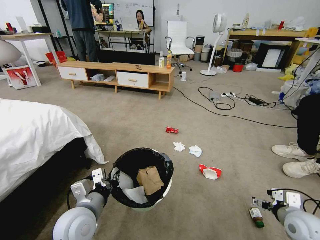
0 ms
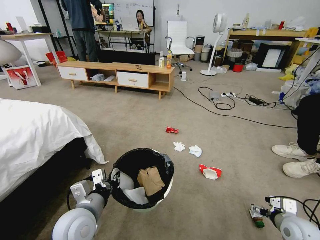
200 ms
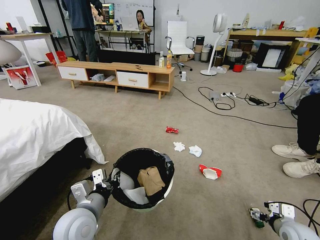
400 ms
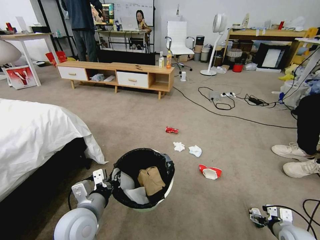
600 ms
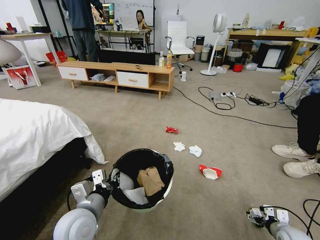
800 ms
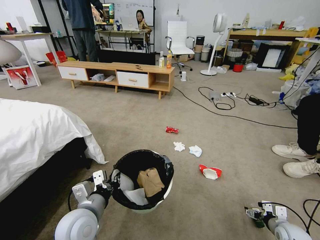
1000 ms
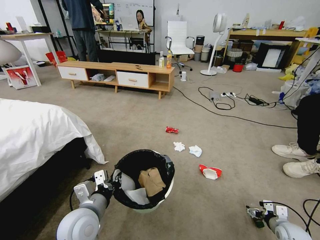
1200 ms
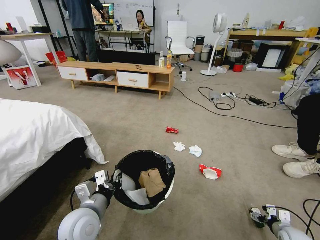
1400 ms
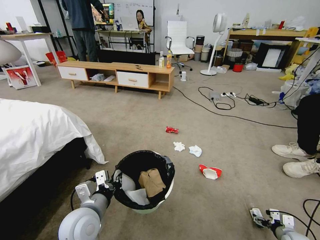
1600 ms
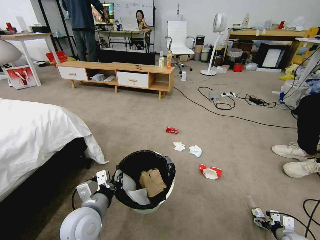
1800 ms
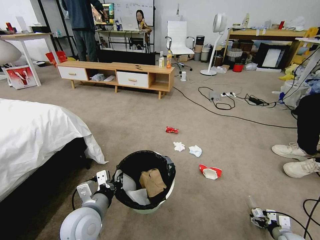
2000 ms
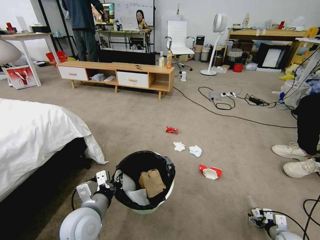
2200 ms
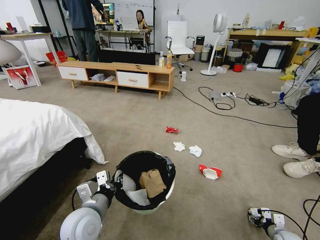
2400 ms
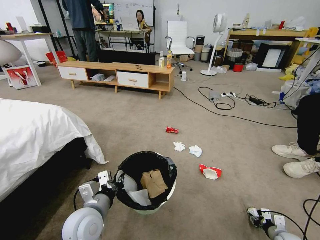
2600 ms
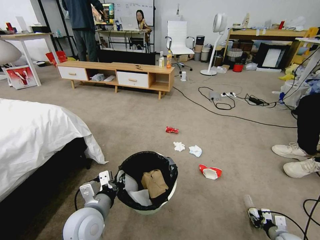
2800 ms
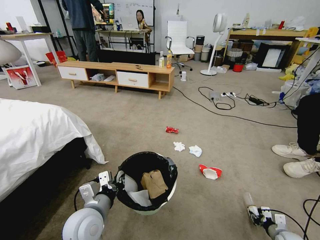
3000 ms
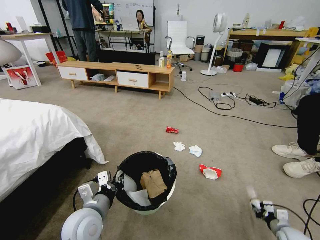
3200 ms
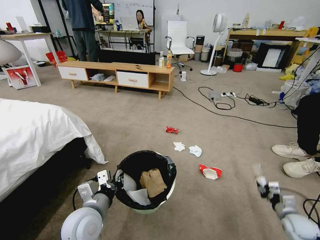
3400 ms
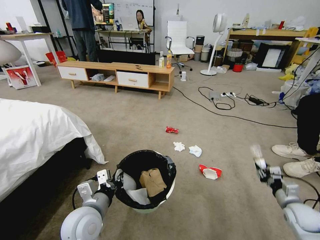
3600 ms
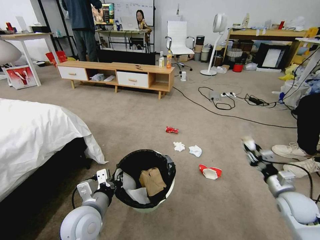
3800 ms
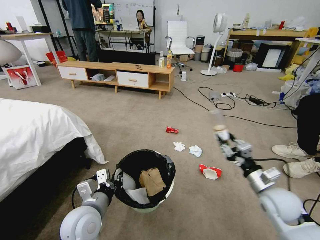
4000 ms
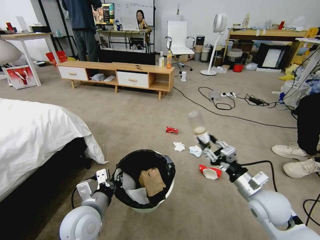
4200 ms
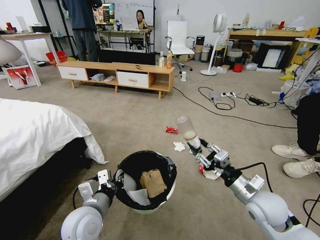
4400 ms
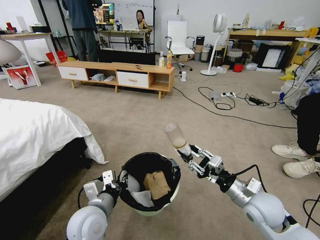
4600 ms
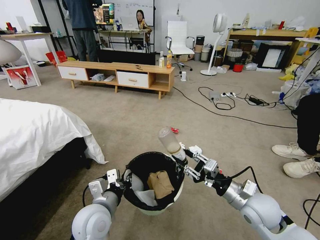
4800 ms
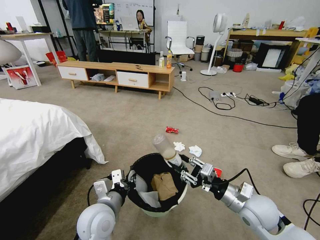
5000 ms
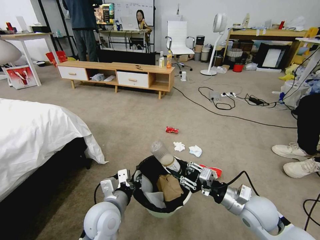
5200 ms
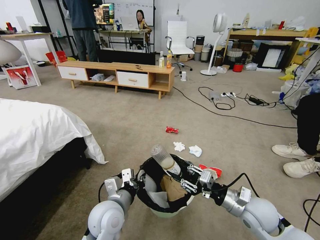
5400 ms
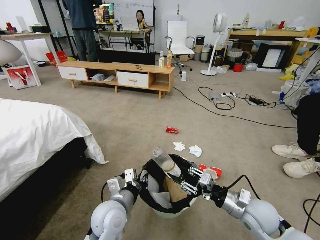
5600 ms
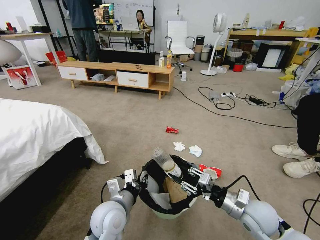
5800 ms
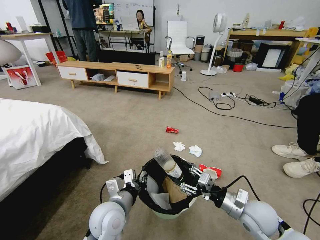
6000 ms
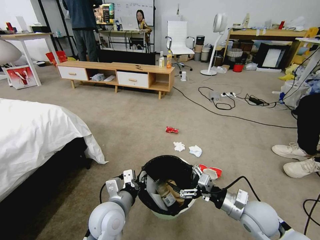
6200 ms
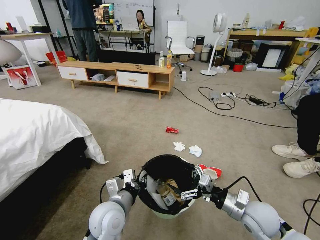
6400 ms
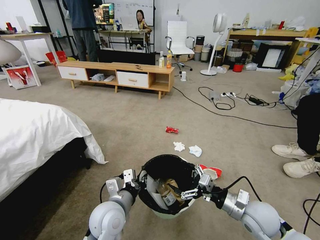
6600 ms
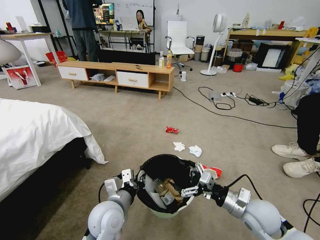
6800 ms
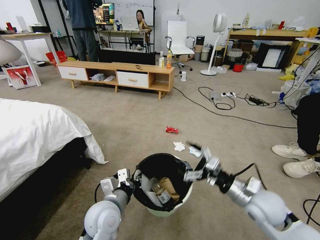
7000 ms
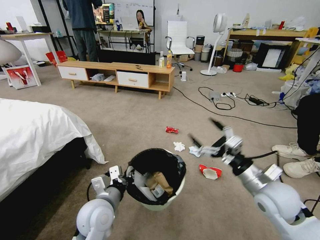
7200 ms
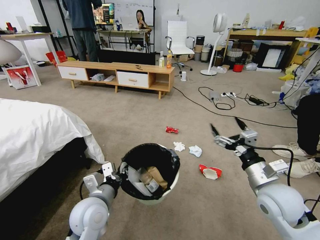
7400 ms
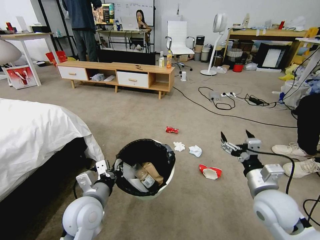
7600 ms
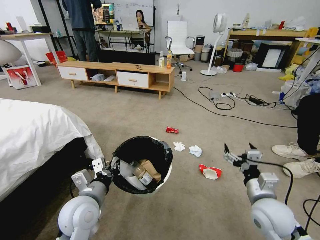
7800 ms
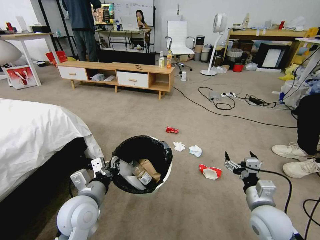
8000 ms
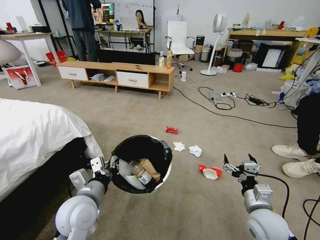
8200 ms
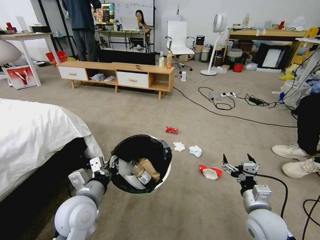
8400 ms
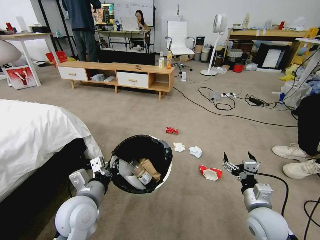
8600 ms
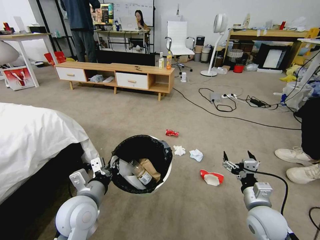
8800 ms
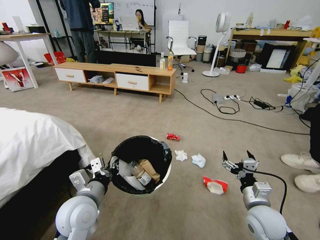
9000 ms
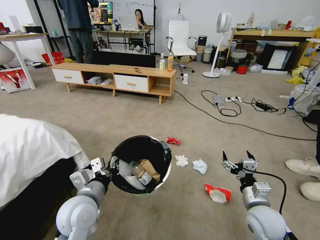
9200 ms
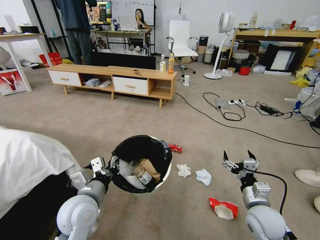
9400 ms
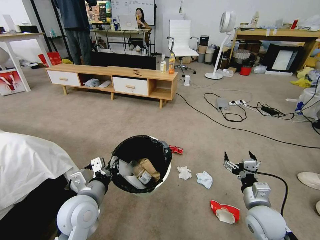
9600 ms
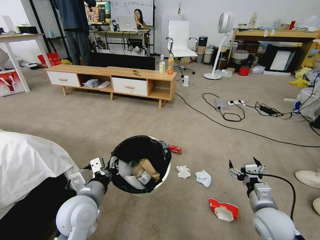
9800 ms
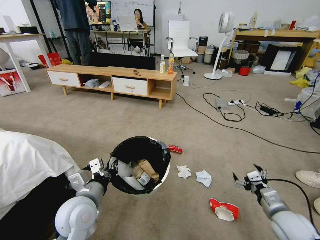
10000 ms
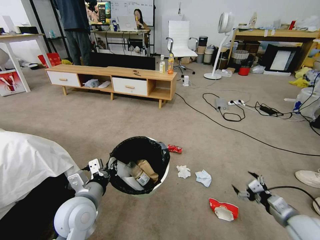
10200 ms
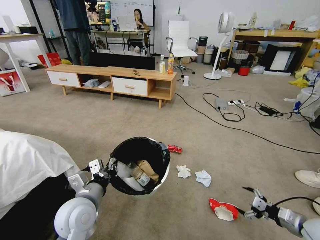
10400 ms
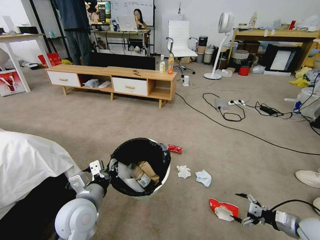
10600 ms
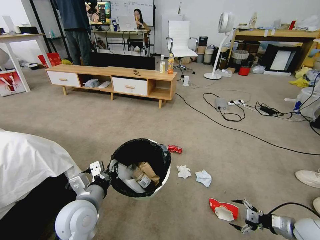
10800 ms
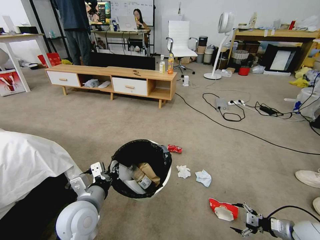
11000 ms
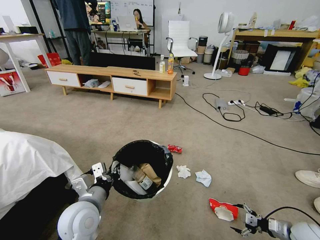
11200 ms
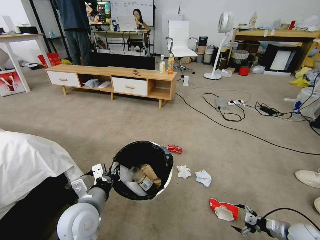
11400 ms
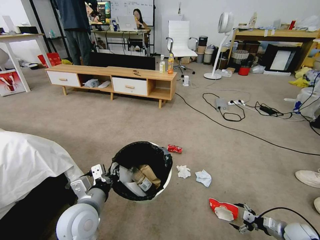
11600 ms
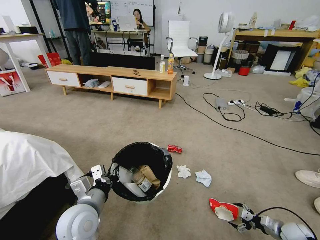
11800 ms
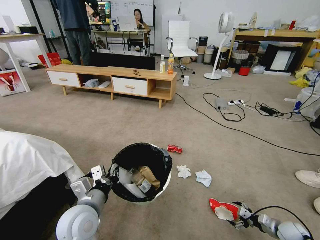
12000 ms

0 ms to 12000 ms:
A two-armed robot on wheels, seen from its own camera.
Task of the whole recording: Pick up the trash bin and place the garbage on the floor into it.
0 ms to 1600 ms: The right gripper moves downward and to the right, about 20 cm.
1600 ms to 3000 ms: The right gripper closes up.
3000 ms to 4400 ms: The right gripper heads upward and to the left, covering roughly 35 cm.
4400 ms to 6000 ms: The left gripper shifts some 5 cm to the right.
6000 ms to 7600 ms: The left gripper moves to the left, some 5 cm. The right gripper is displaced upward by some 5 cm, and opens its fingers.
7600 ms to 9000 ms: The right gripper is displaced downward by approximately 10 cm.
9000 ms to 10400 ms: The right gripper is displaced to the right by roughly 20 cm.
10400 ms to 12000 ms: The right gripper is displaced downward by some 15 cm.

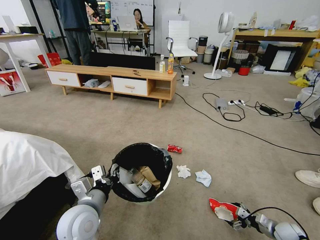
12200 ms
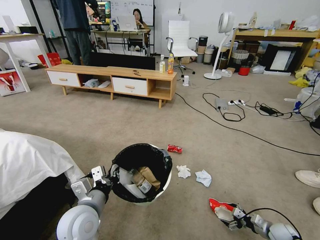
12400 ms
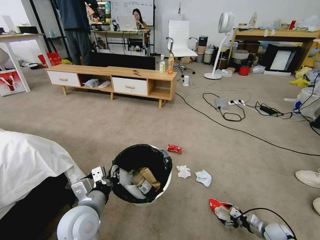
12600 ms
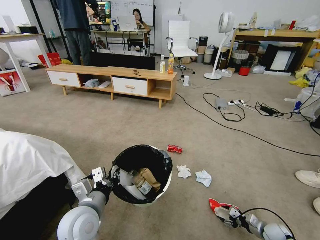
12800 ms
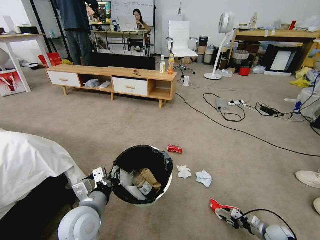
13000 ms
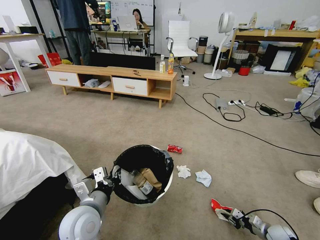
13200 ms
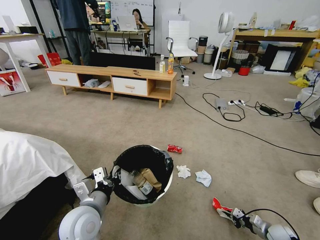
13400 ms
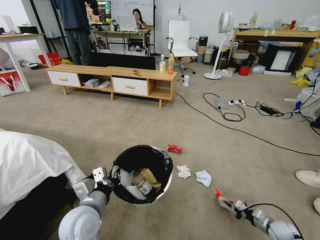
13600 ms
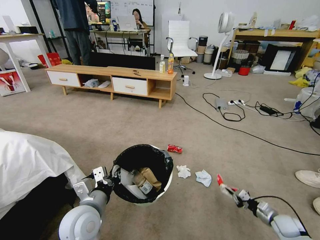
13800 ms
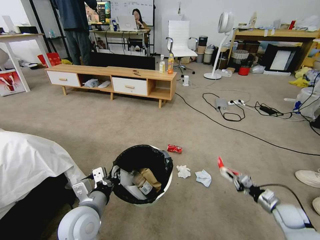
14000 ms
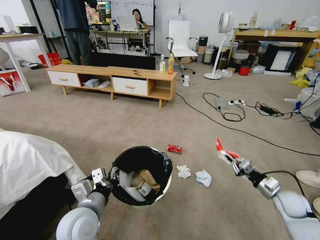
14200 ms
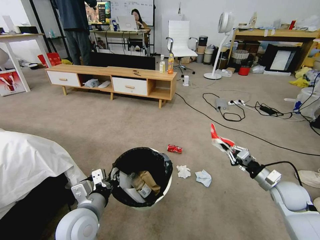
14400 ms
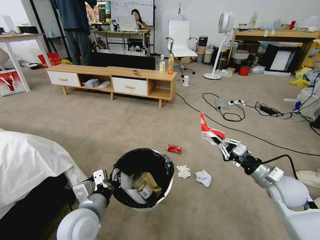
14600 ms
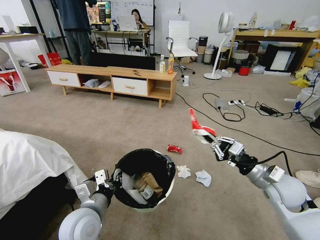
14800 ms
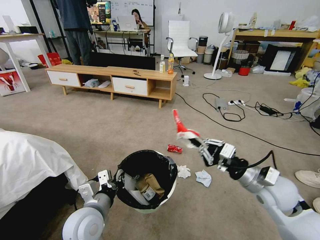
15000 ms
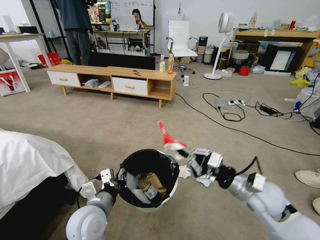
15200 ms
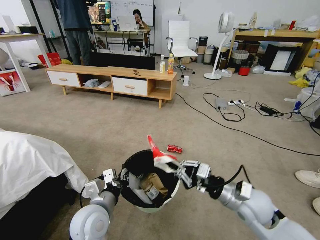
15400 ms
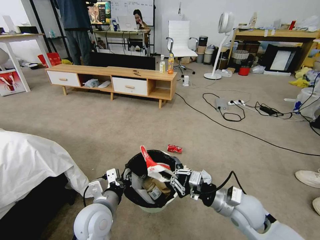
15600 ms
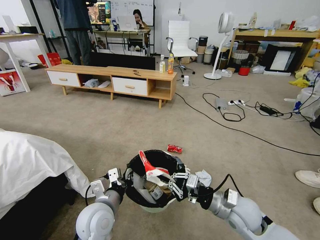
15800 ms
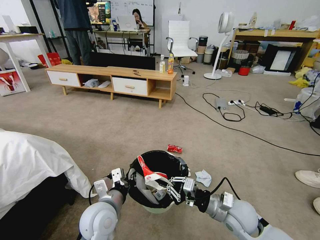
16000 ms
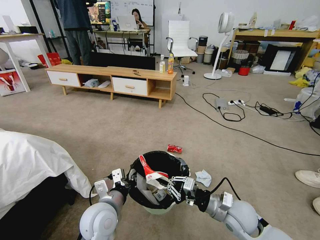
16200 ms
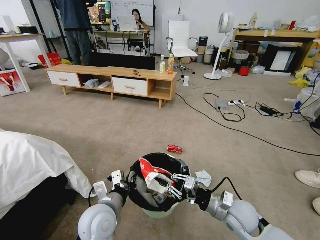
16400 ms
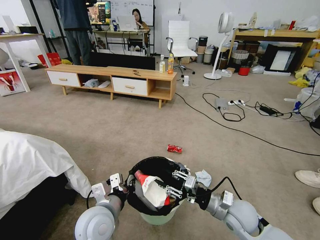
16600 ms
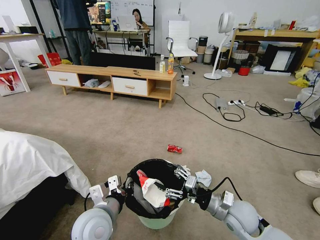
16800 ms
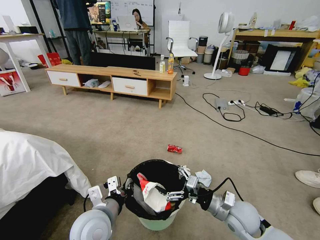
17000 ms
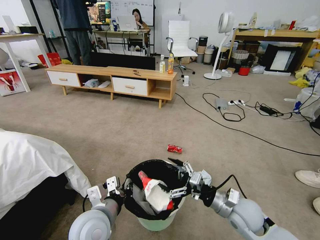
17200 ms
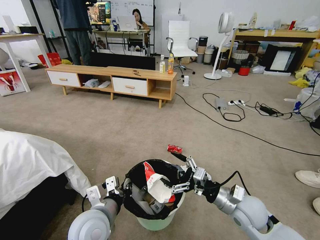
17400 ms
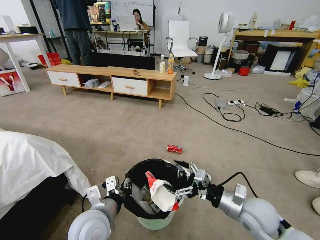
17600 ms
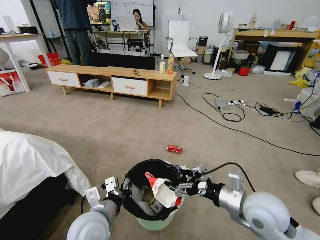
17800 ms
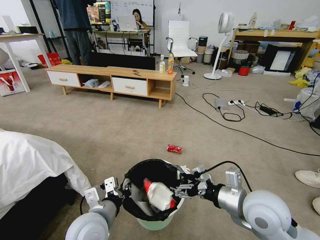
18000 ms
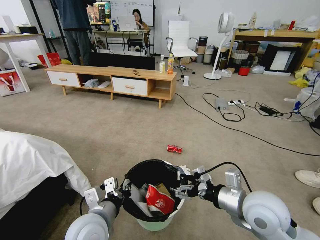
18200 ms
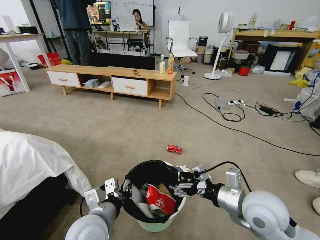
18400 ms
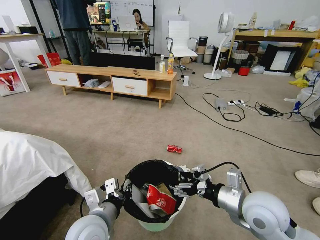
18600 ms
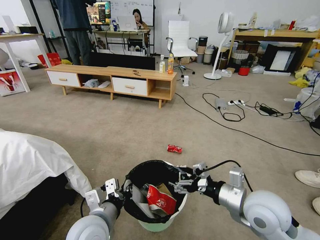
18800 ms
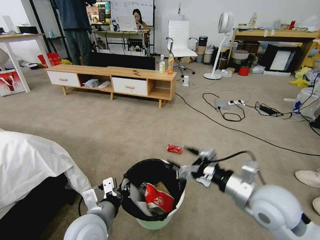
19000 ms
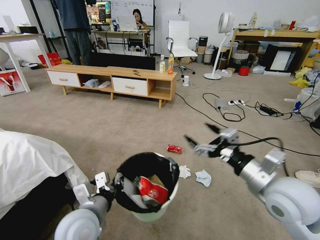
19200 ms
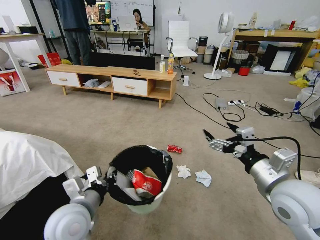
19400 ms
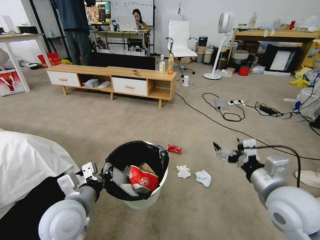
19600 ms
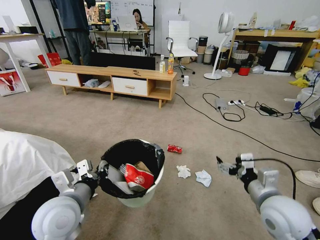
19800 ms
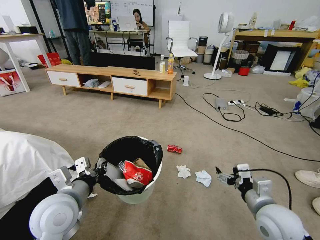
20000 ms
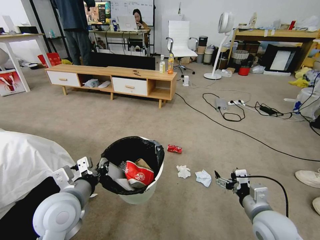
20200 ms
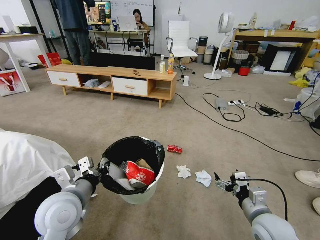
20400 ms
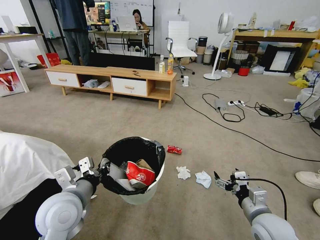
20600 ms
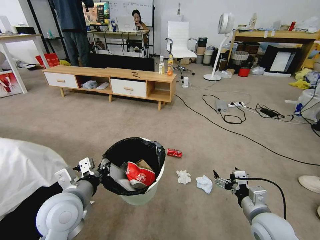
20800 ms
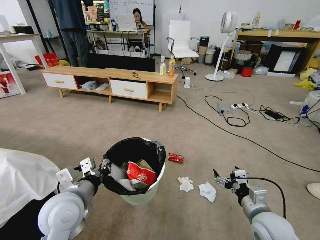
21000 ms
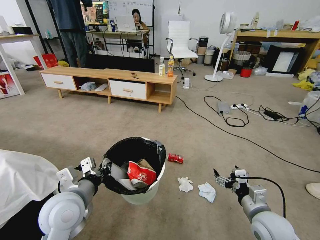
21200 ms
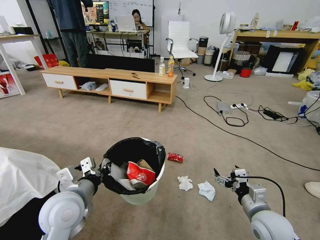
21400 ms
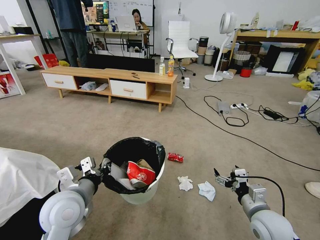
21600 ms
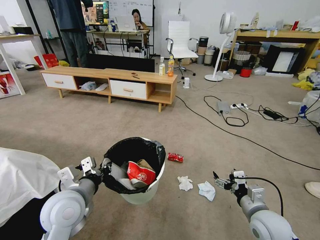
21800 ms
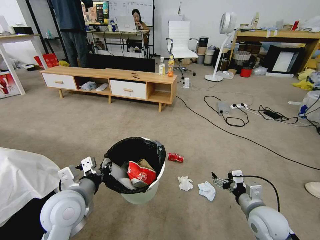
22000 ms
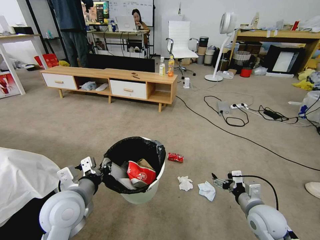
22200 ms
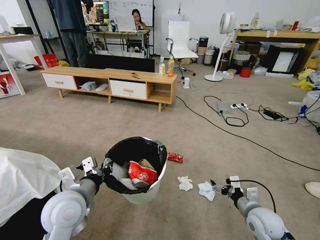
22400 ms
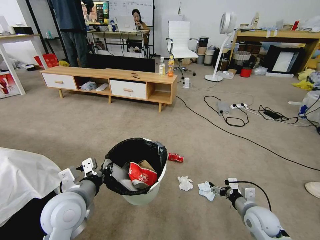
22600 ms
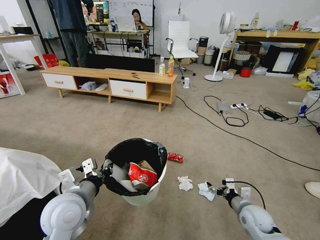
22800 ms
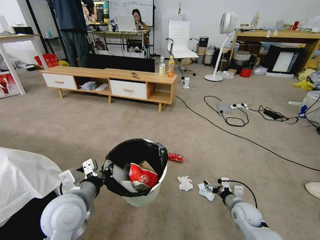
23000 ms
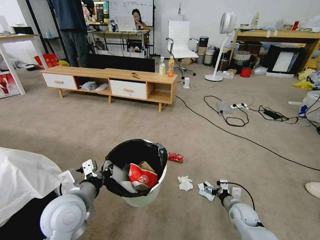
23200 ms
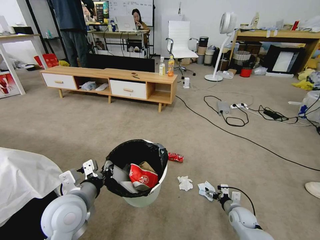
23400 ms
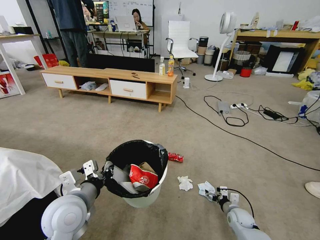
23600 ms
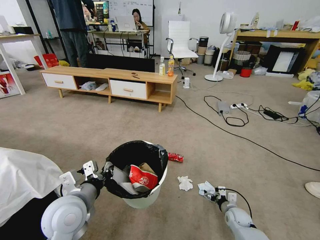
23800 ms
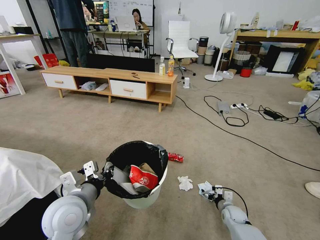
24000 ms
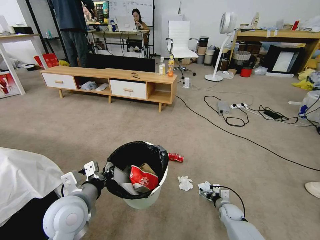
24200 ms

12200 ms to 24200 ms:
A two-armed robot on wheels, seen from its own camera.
Task of the whole recording: Pick up the trash bin and place the garbage on the floor into it.
12200 ms to 13800 ms: The right gripper closes its fingers.
13800 ms to 15200 ms: The right gripper shifts roughly 35 cm upward and to the left.
15200 ms to 16600 ms: The right gripper is displaced downward by about 10 cm, and opens.
16600 ms to 18200 ms: The right gripper goes about 10 cm upward, and opens its fingers.
18200 ms to 19800 ms: The right gripper moves to the right, some 5 cm; the left gripper is displaced to the left by approximately 5 cm.
19800 ms to 21200 ms: The right gripper moves downward, some 10 cm.
21200 ms to 22600 ms: The right gripper goes some 10 cm downward.
22600 ms to 24200 ms: The right gripper travels downward and forward by roughly 20 cm.
